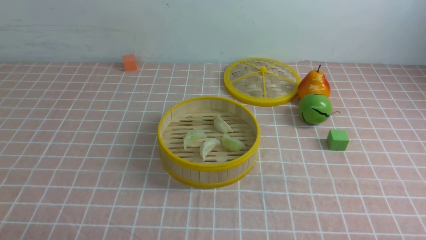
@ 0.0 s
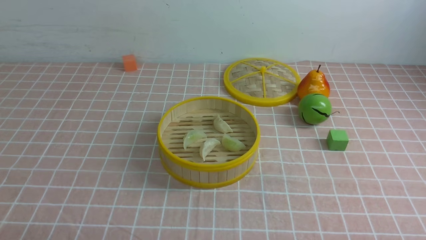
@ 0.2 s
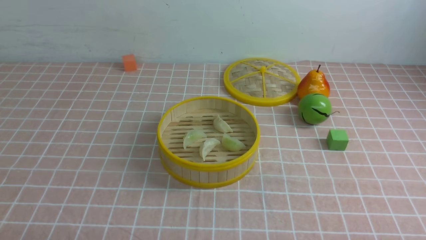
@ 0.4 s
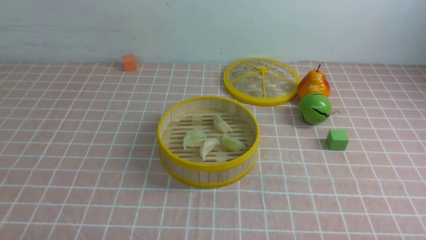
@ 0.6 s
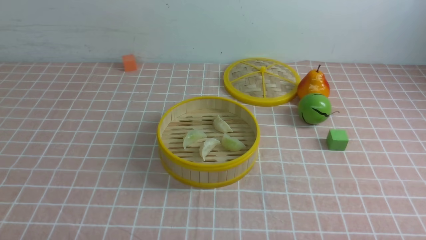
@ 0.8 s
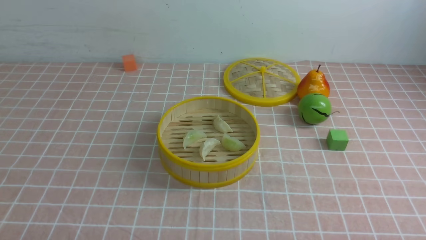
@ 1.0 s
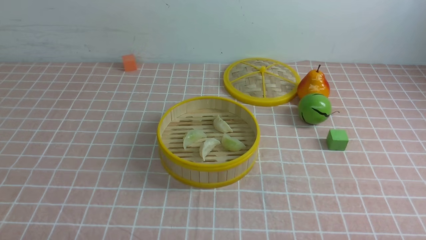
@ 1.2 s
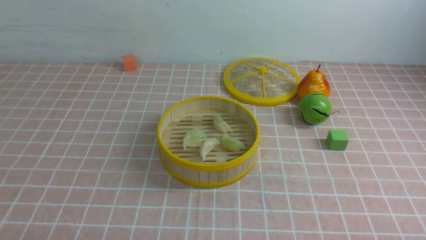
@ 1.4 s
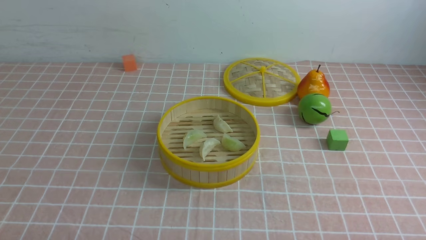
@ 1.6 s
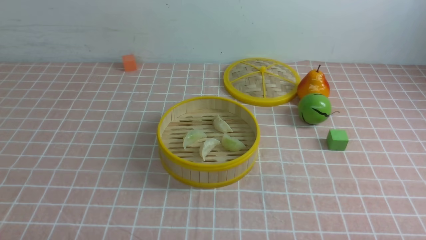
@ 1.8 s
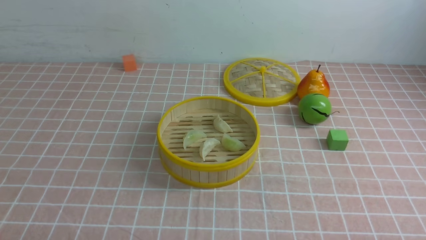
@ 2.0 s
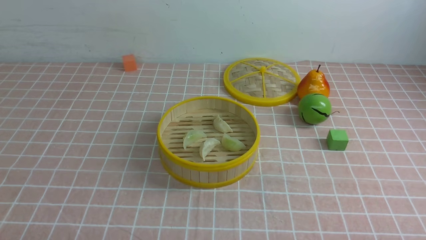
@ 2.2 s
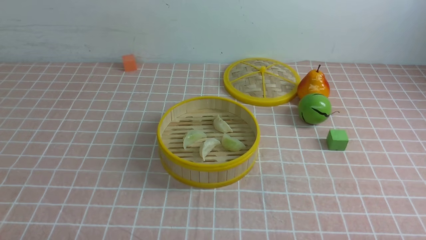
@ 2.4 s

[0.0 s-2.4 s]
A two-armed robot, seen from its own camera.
Task of the whole recording: put the dumplings into the steamer on the table with the pink tablecloth.
1.2 to 2.4 s: Neither gripper changes place.
